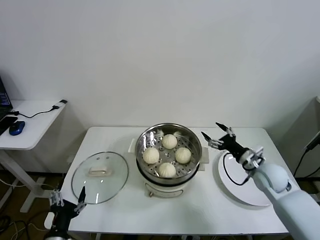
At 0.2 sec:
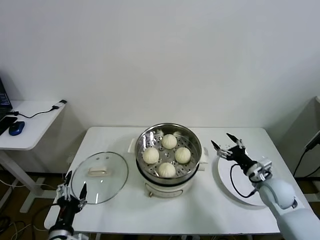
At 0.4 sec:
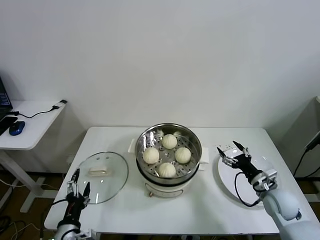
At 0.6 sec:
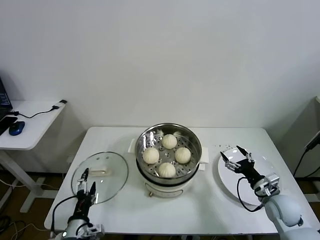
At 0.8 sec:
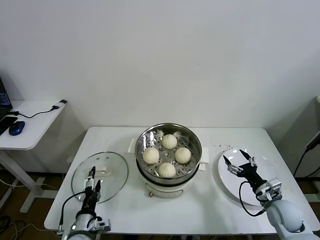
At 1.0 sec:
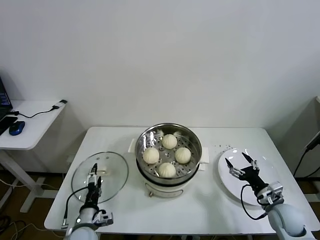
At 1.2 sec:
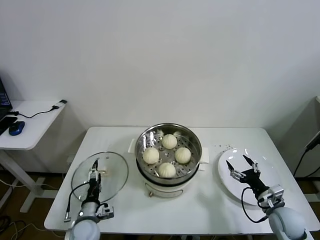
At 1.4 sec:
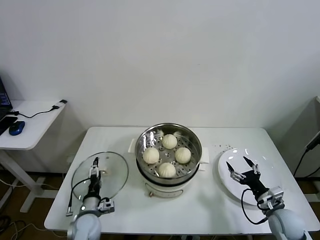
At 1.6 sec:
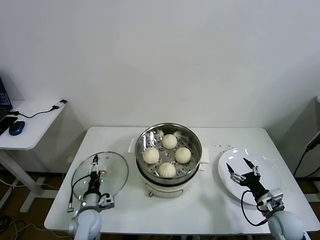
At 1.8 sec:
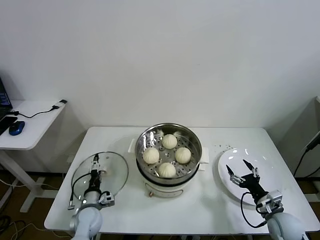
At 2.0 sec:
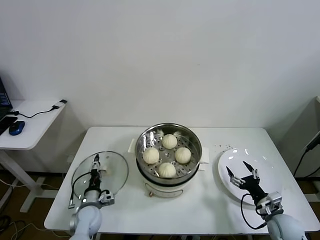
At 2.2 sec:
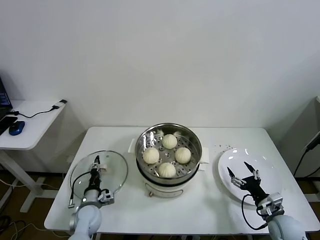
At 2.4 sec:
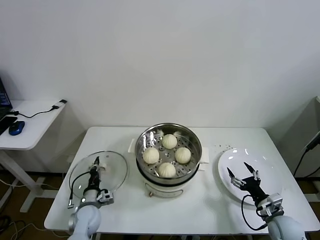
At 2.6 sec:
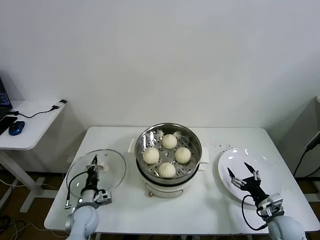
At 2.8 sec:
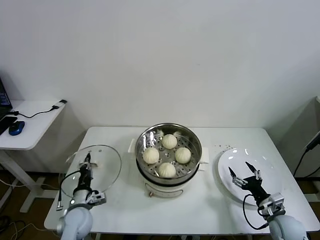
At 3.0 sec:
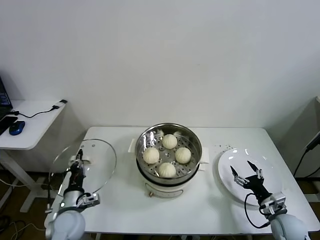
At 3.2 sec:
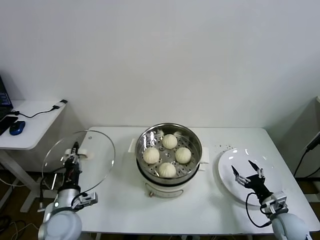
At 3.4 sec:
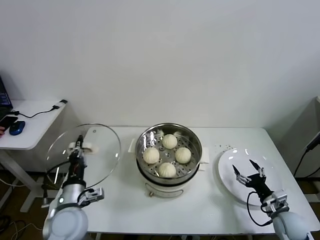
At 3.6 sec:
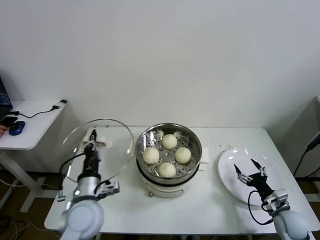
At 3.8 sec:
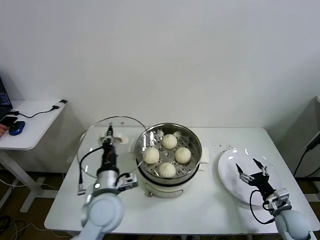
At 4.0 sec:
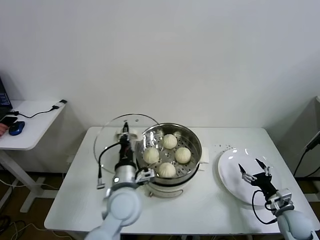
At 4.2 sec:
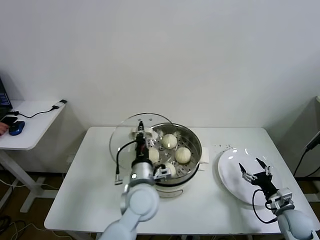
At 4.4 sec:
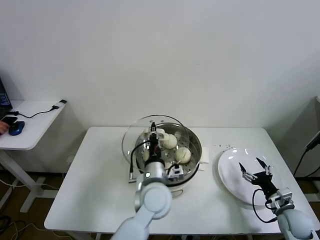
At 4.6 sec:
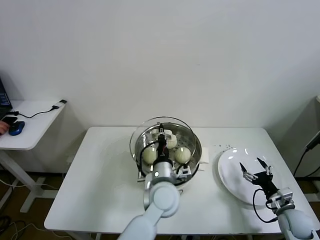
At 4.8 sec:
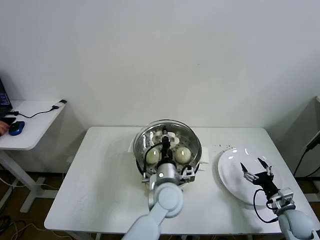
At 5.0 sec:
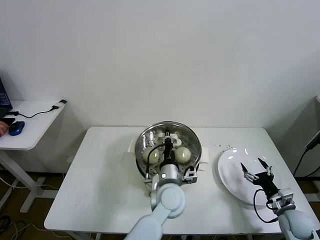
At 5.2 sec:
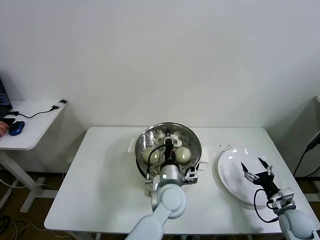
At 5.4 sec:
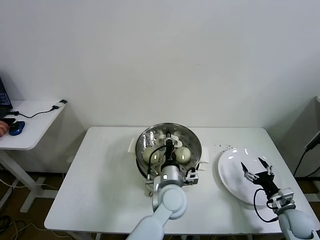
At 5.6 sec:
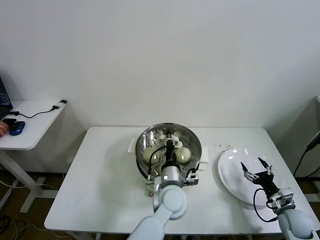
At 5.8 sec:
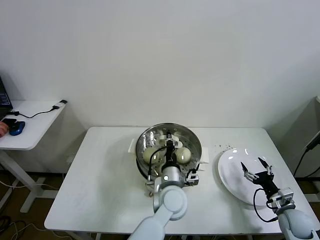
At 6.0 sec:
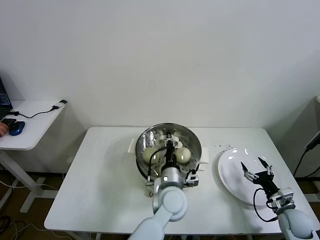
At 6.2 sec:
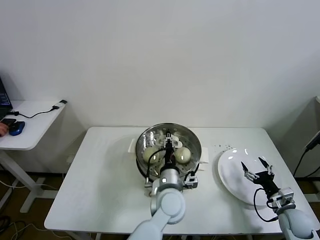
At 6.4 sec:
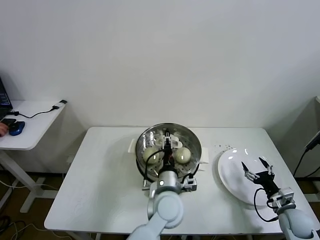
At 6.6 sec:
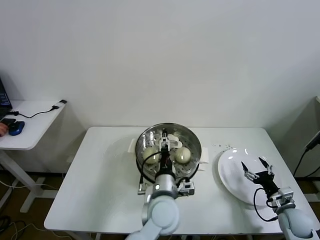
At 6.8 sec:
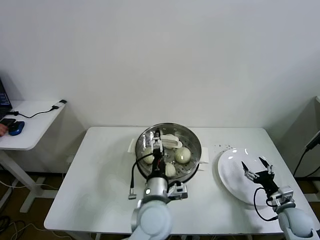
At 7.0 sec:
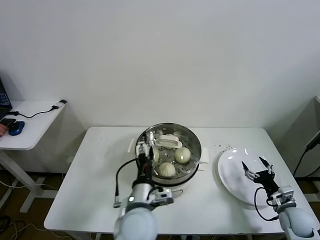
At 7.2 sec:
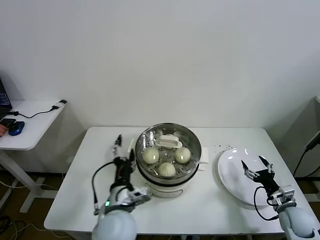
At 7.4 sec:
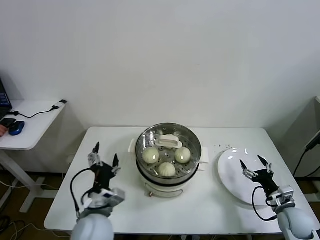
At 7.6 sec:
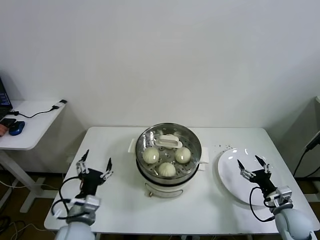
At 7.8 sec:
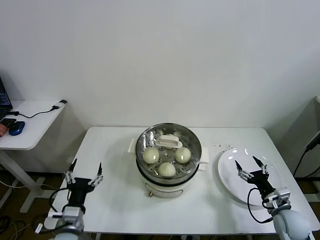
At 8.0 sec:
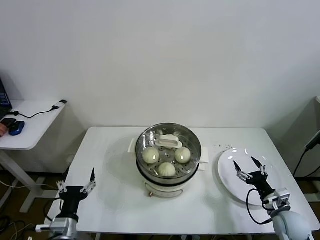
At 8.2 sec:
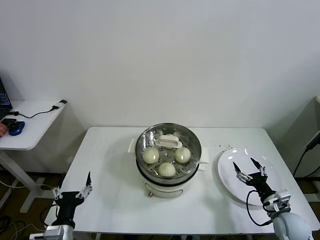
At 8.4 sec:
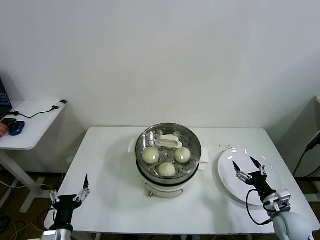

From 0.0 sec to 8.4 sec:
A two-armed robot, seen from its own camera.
Task of the whole recording: take steamed baozi put them in steamer.
Step, from 0.0 sec to 2.4 sec: Grasp the pot lid with left gripper.
Step, from 2.6 sec to 6.4 sec: Place the pot lid on the steamer with left gripper.
From 0.0 sec to 1.4 sec: The right gripper is displaced backward and downward by about 15 cm. The left gripper shifts approximately 20 cm forward and downward.
From 1.4 sec to 2.8 sec: The left gripper closes up.
From 2.8 sec to 4.2 sec: The left gripper travels to the right and upward by roughly 30 cm.
From 4.2 sec to 5.6 sec: The left gripper is displaced to the right by approximately 10 cm.
From 5.6 sec to 7.0 sec: The left gripper shifts some 10 cm to the left and backward, and opens up.
From 7.0 sec to 8.4 sec: The right gripper ends up approximately 5 cm from where it was, while the left gripper shifts approximately 25 cm to the left and downward.
